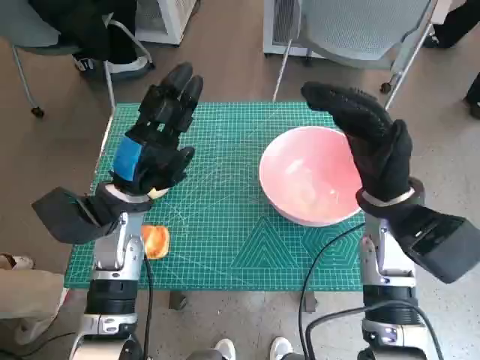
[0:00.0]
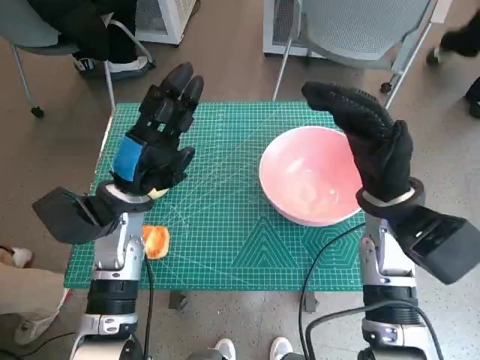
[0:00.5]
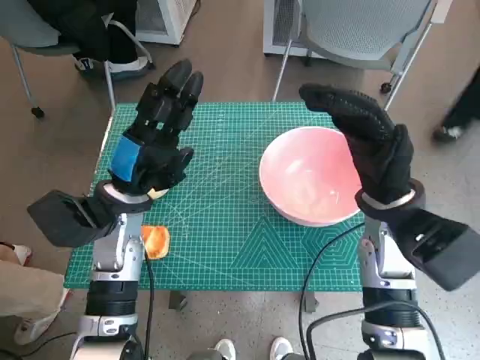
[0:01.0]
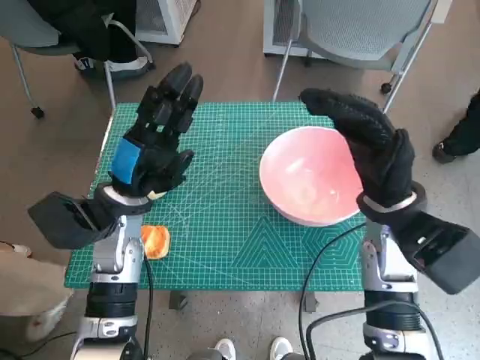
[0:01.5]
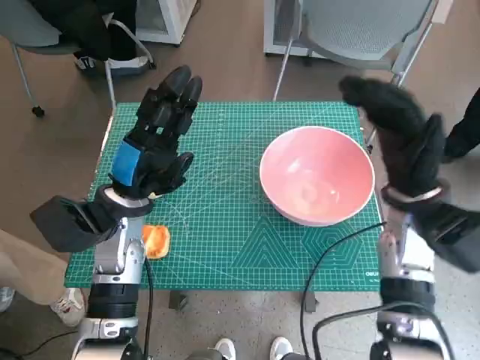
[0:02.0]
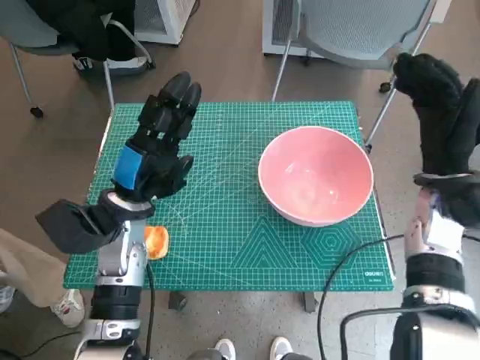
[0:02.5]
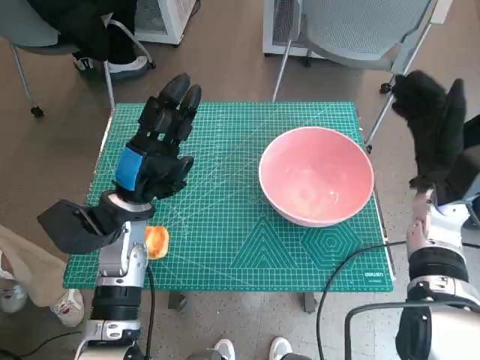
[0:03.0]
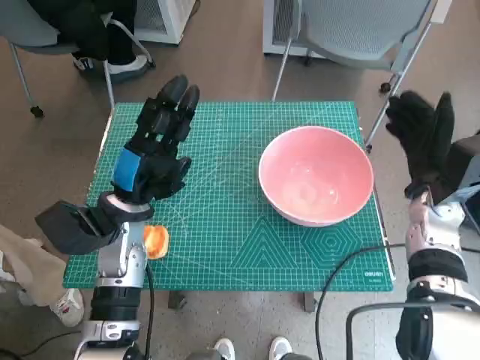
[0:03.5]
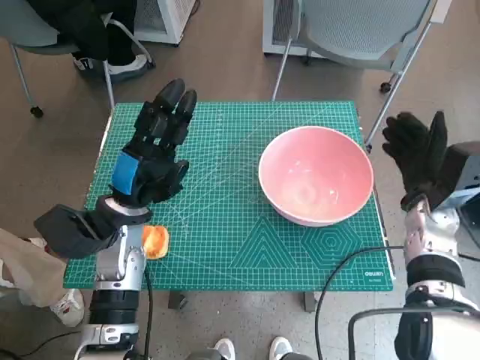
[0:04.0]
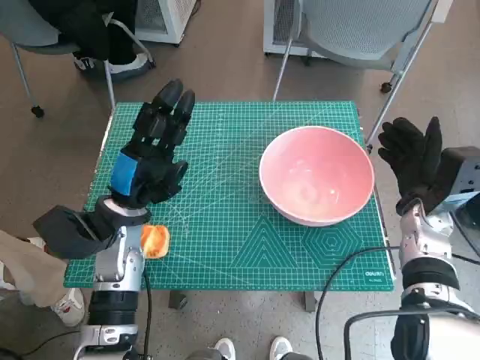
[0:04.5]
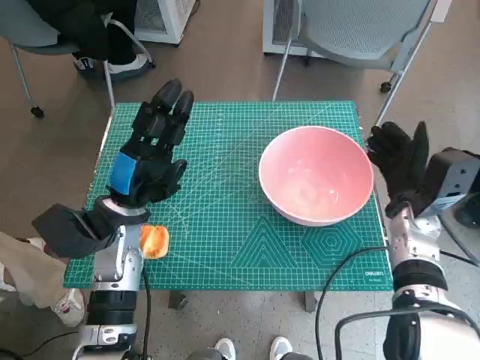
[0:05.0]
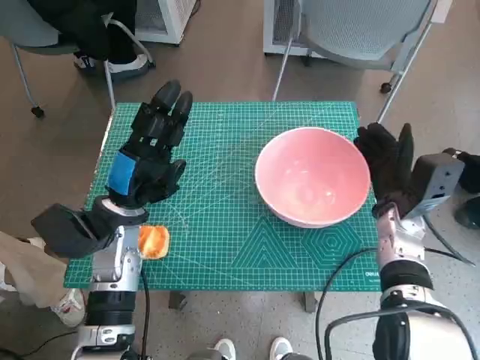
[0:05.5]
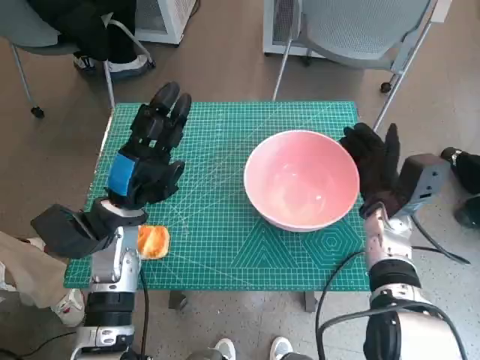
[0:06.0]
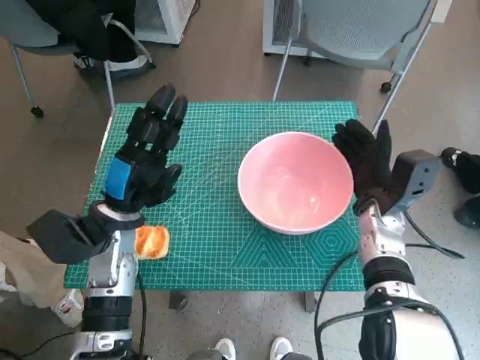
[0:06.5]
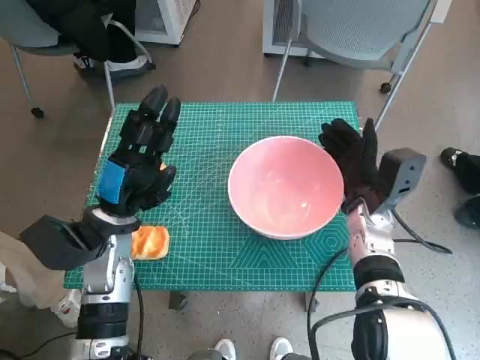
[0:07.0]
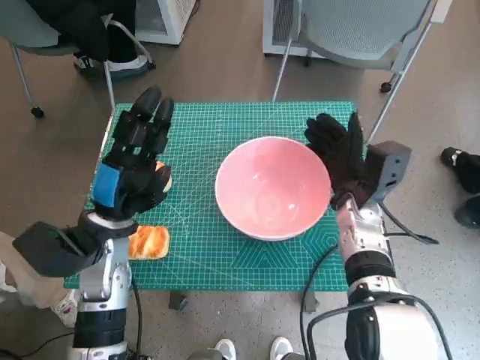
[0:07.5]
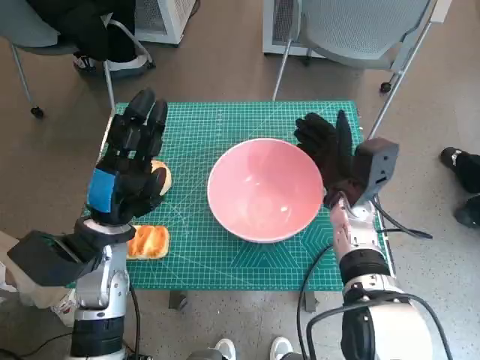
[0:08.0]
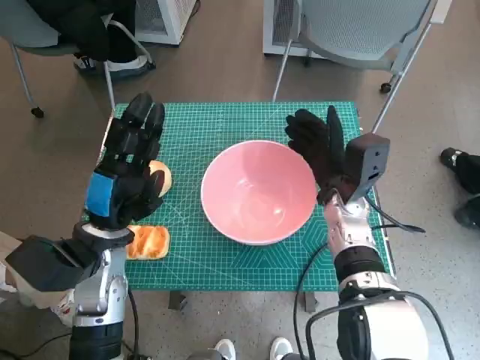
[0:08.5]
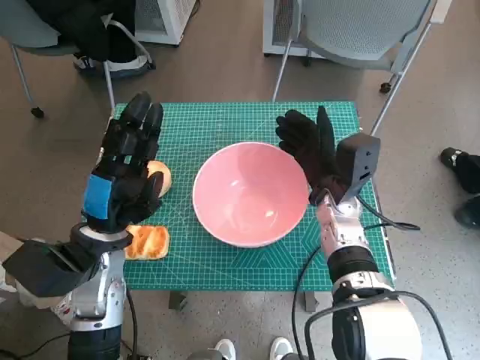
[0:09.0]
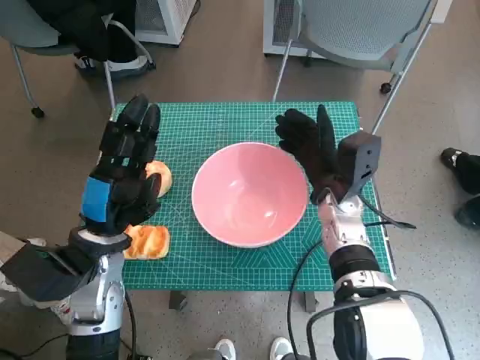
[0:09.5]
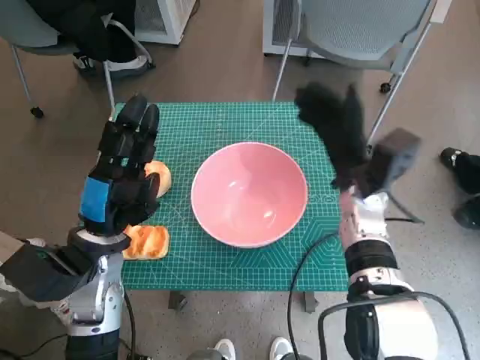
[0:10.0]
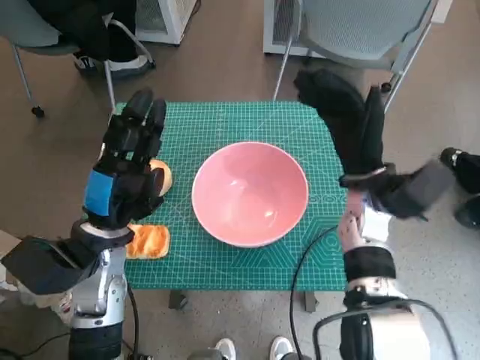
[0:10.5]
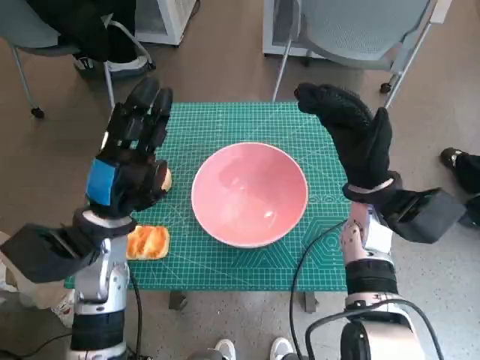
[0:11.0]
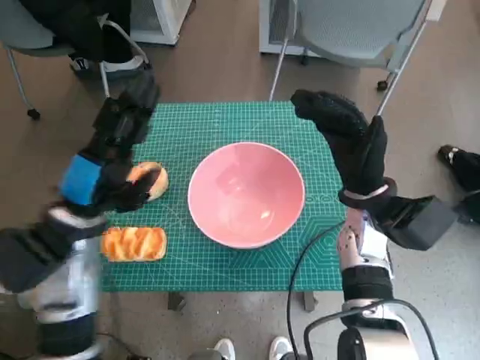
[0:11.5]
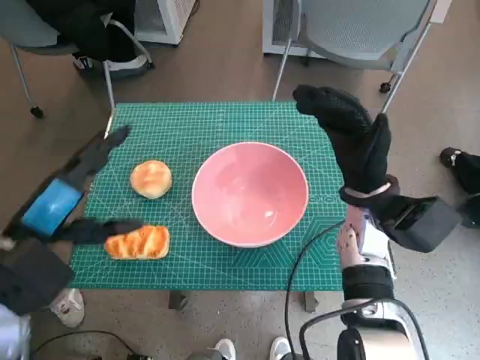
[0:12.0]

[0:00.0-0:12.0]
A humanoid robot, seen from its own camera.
Step, 0:00.0 to 0:09.5: Move the pink bowl to the center of table with right hand.
0:02.0 to 0:04.0: The right hand heads downward and to the right, covering some 10 cm.
0:04.0 to 0:06.0: The right hand heads to the left, covering about 5 cm.
0:06.0 to 0:08.0: The right hand moves to the left, approximately 5 cm.
0:08.0 to 0:10.0: There are only small adjustments of the hands.
0:10.0 to 0:12.0: The left hand moves upward, about 5 cm.

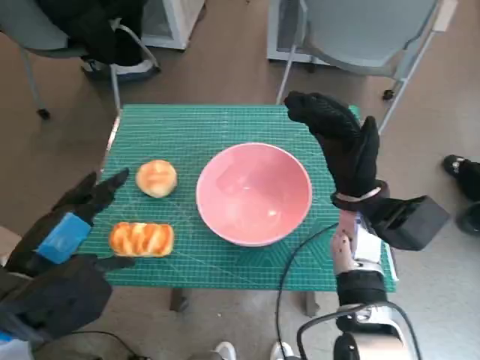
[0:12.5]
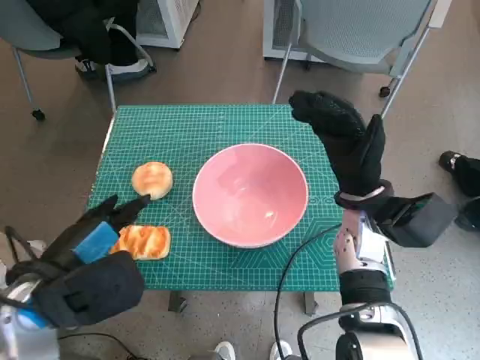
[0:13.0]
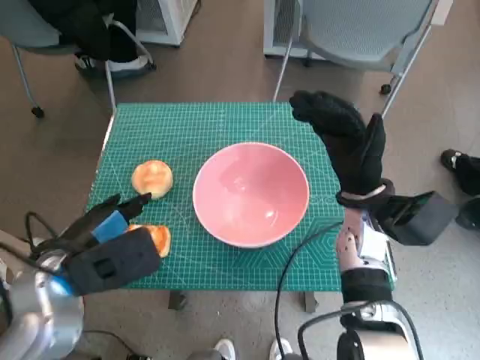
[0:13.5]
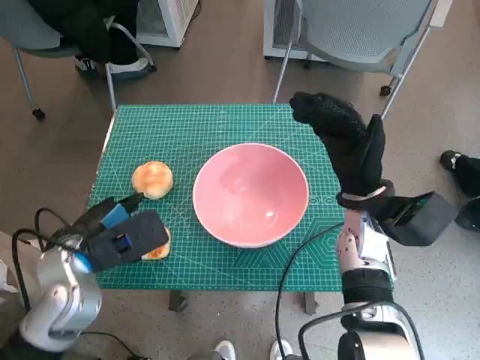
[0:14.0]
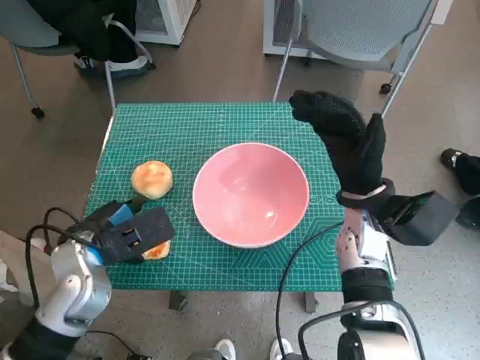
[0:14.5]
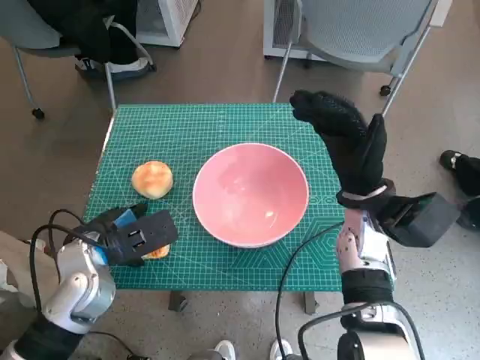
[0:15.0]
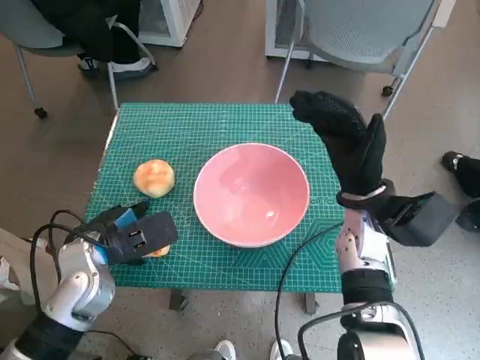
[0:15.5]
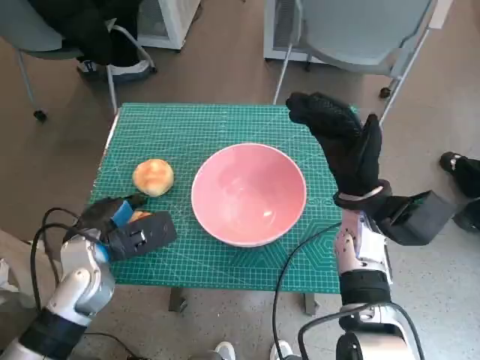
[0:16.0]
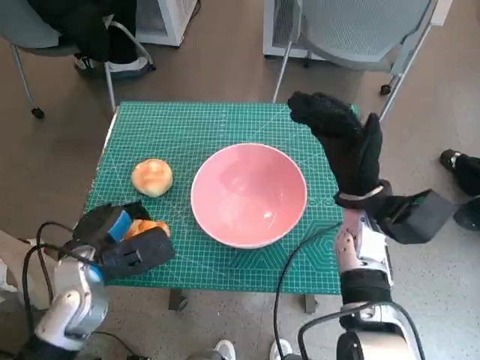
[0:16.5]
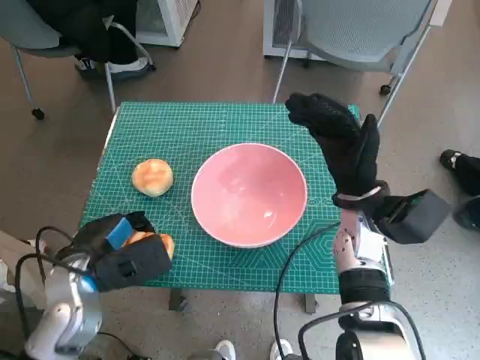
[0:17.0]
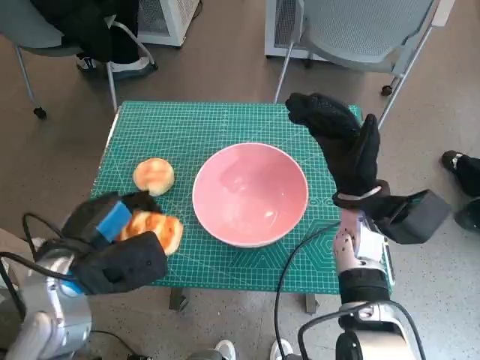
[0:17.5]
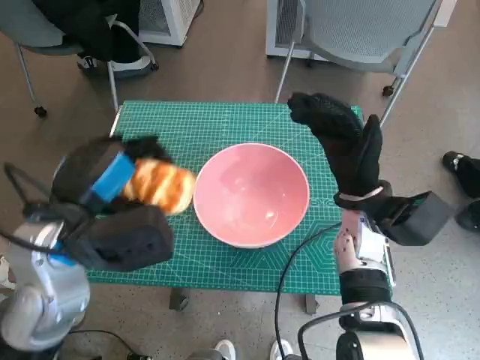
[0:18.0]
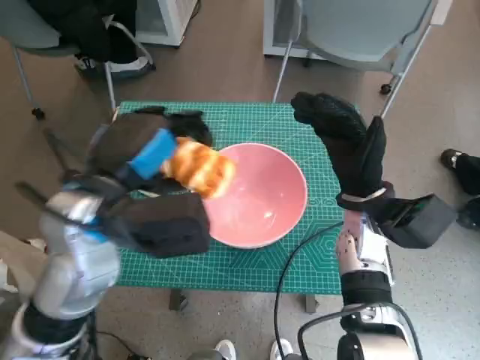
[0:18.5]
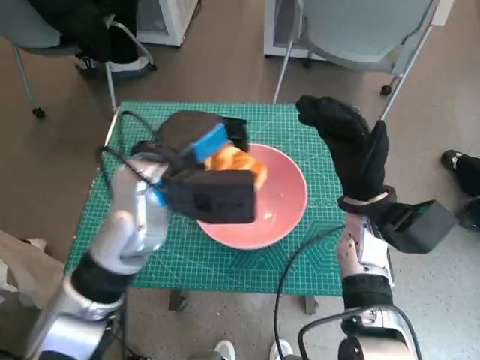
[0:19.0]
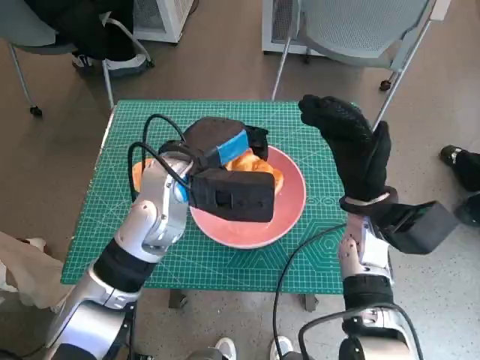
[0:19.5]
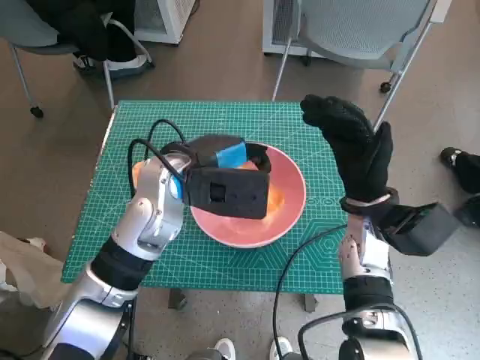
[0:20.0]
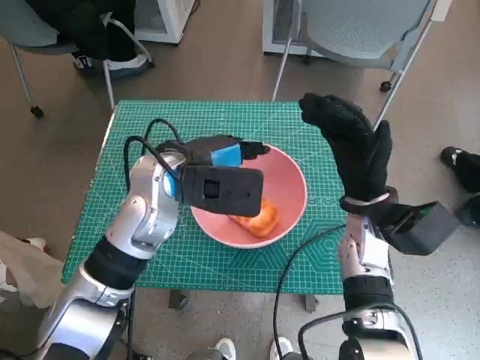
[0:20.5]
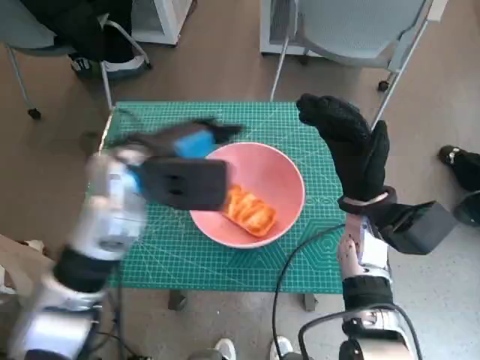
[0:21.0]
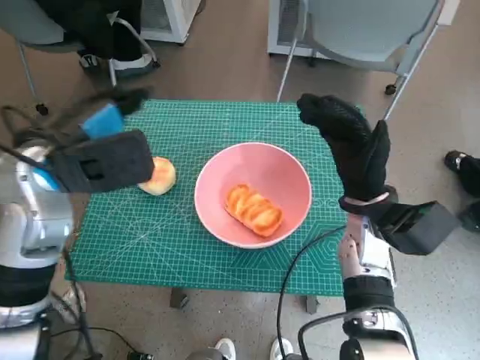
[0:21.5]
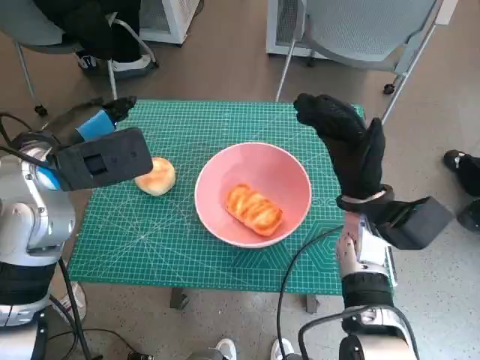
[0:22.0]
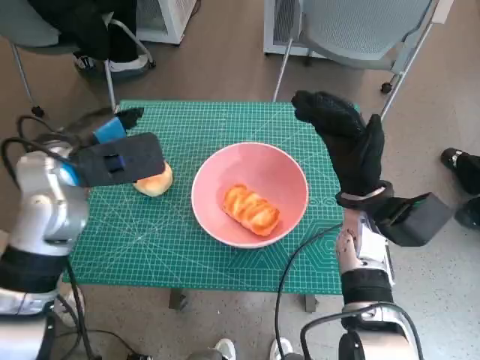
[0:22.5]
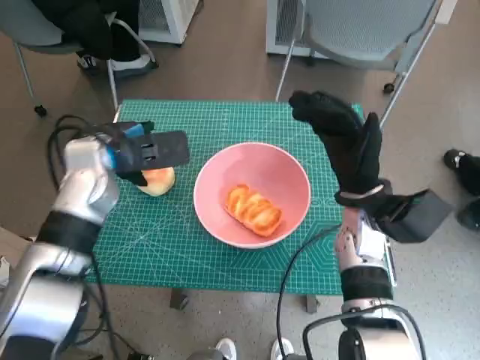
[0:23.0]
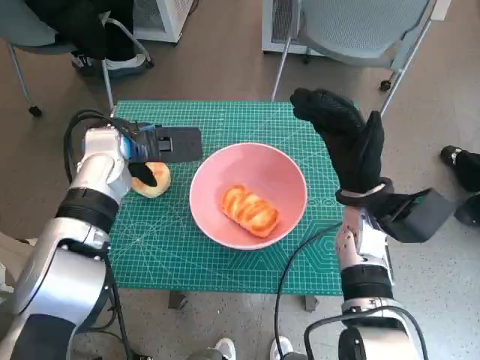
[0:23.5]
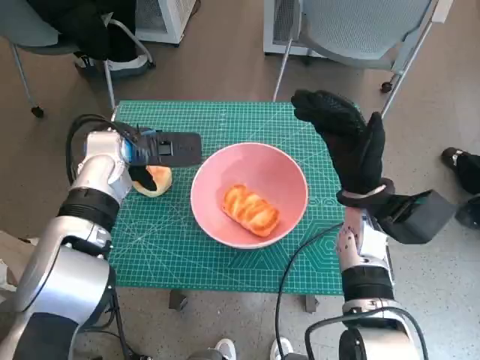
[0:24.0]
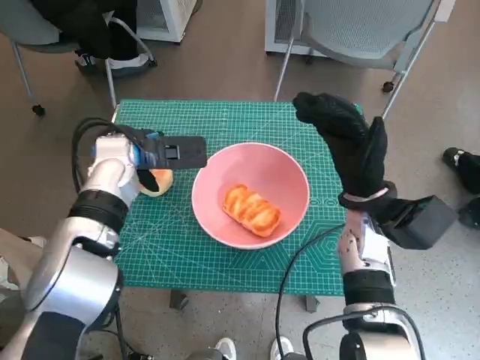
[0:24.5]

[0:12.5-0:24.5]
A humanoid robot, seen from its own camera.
Step, 0:12.5 to 0:16.0: Grasp the long bread with left hand.
Step, 0:16.5 to 0:20.0: Place the long bread in pink bowl with left hand.
0:12.5 to 0:14.5: The left hand moves forward and downward, approximately 10 cm.
0:14.5 to 0:16.5: The hands make only small movements.
0:16.5 to 0:18.5: The left hand goes approximately 15 cm upward and to the right.
0:18.5 to 0:20.5: The left hand shifts about 10 cm forward.
0:20.5 to 0:22.5: The left hand travels to the left by approximately 10 cm.
0:22.5 to 0:24.5: The left hand travels forward and downward by about 10 cm.

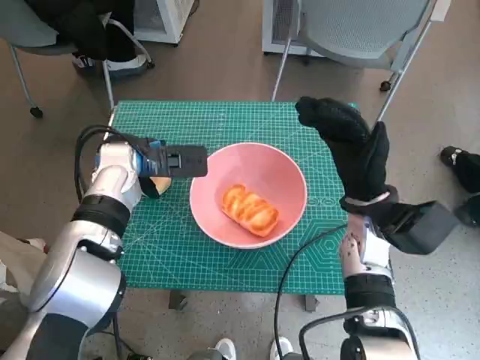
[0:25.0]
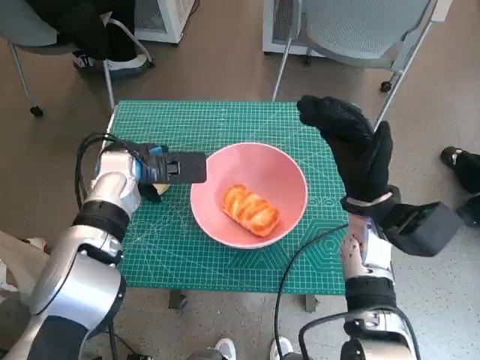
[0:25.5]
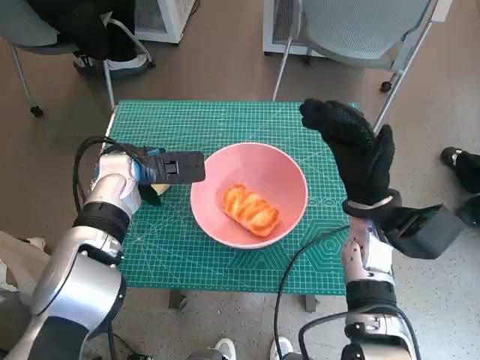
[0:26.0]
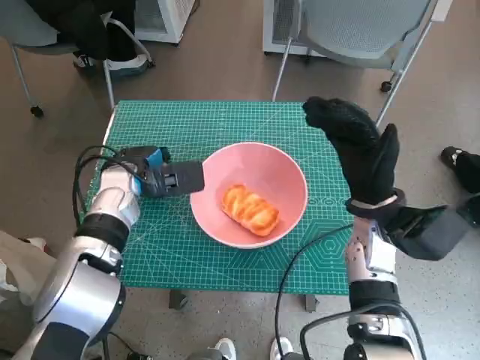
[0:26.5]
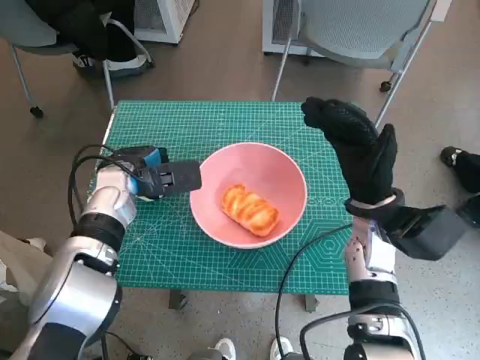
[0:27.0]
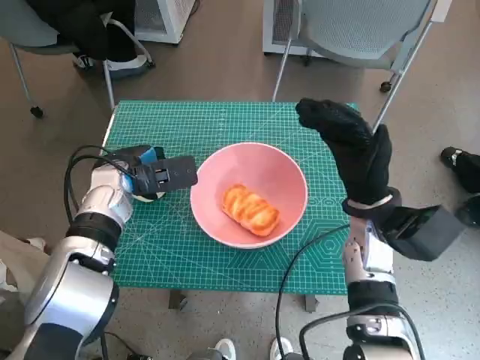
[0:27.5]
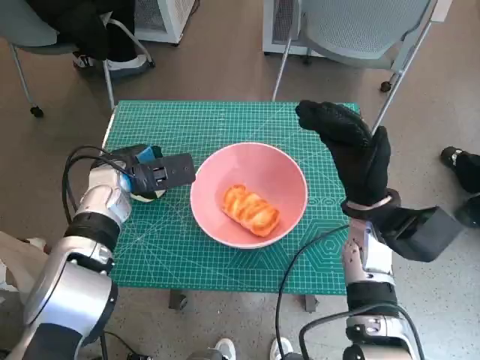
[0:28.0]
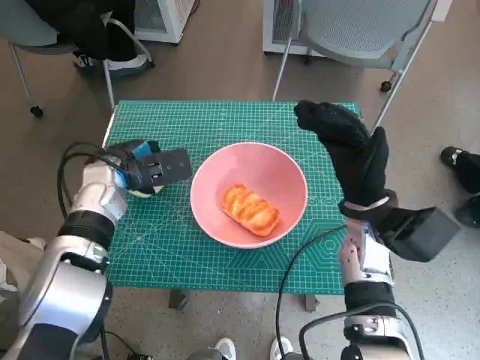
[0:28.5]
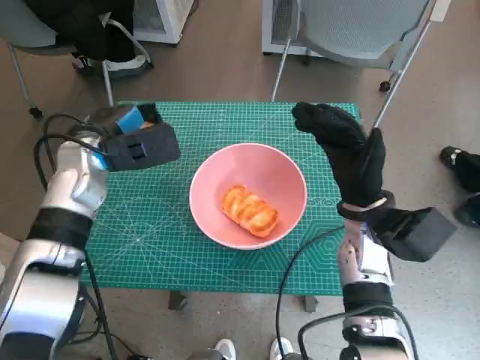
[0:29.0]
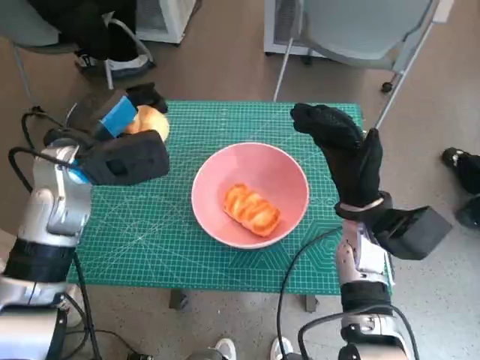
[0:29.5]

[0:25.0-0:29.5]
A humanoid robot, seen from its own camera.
0:25.0 to 0:27.0: The hands move only a little.
0:27.0 to 0:29.5: The left hand is displaced upward by about 10 cm.
